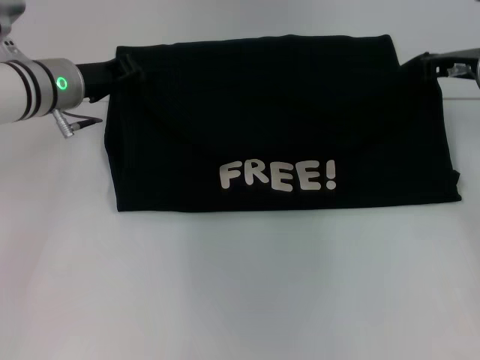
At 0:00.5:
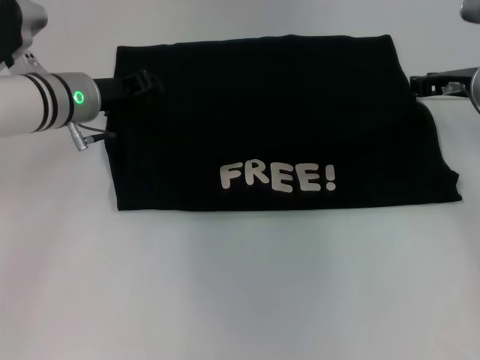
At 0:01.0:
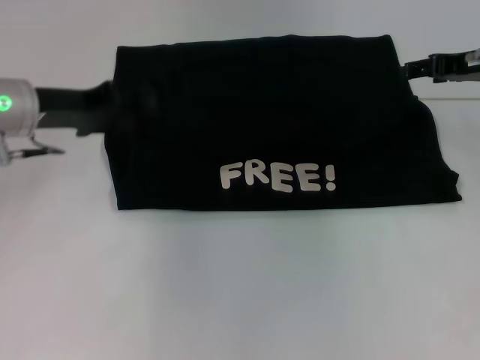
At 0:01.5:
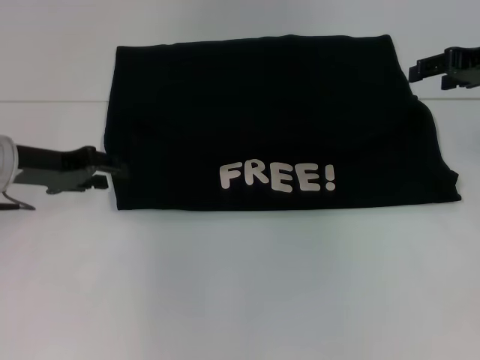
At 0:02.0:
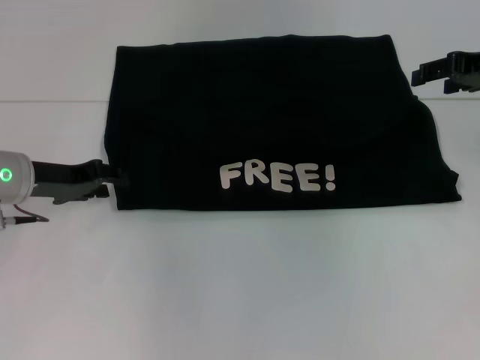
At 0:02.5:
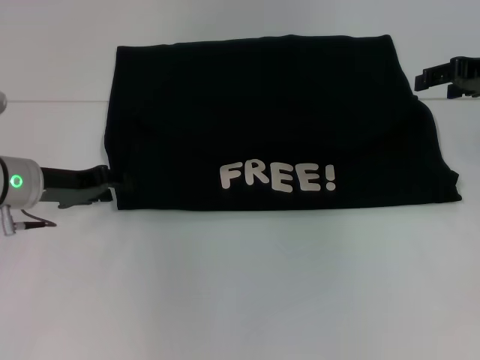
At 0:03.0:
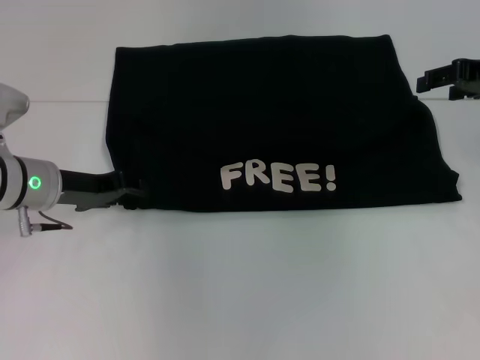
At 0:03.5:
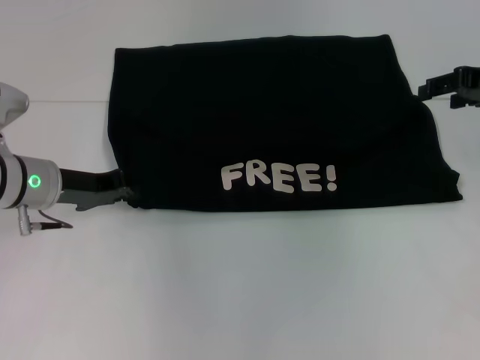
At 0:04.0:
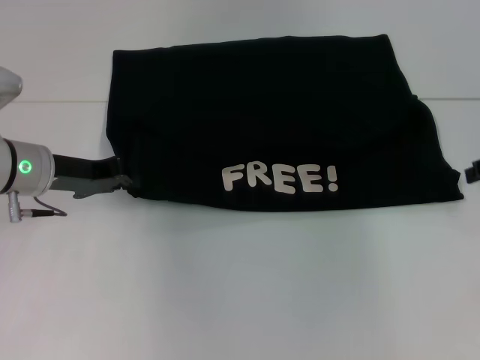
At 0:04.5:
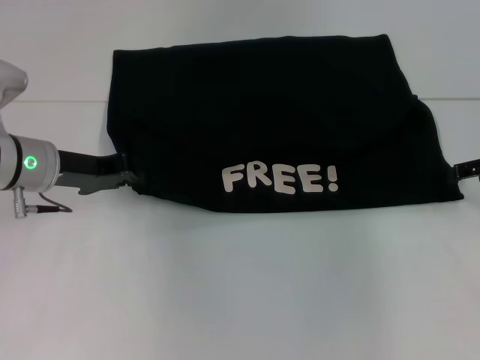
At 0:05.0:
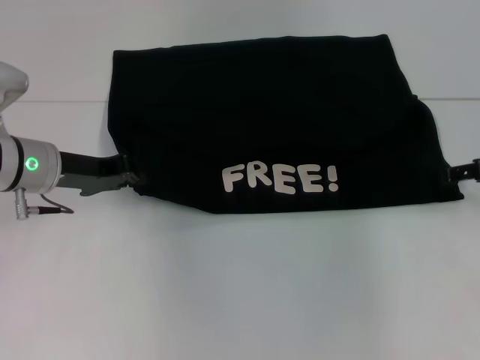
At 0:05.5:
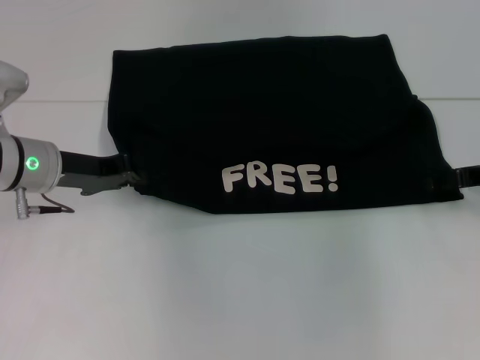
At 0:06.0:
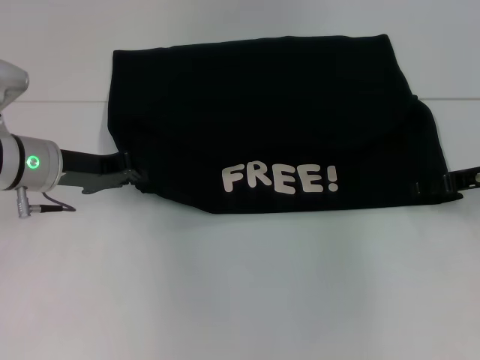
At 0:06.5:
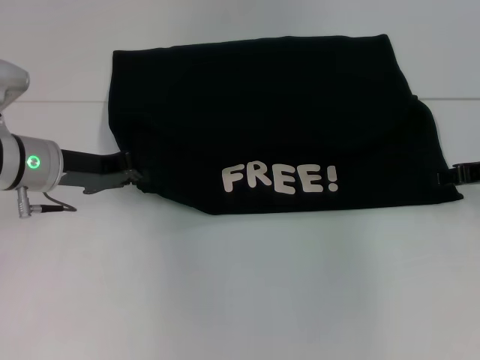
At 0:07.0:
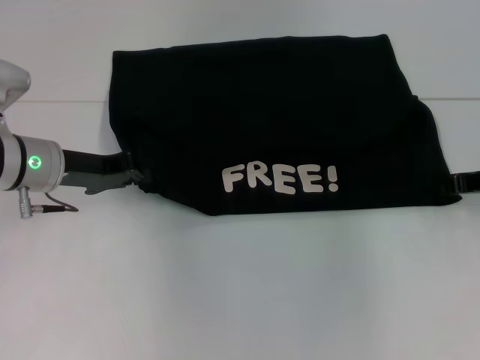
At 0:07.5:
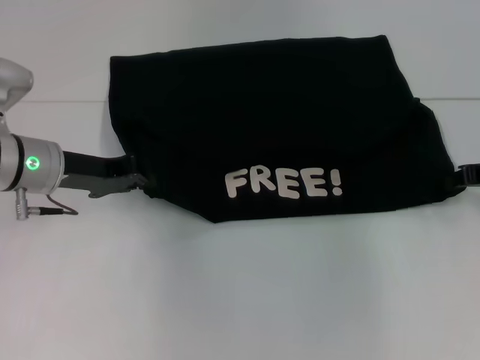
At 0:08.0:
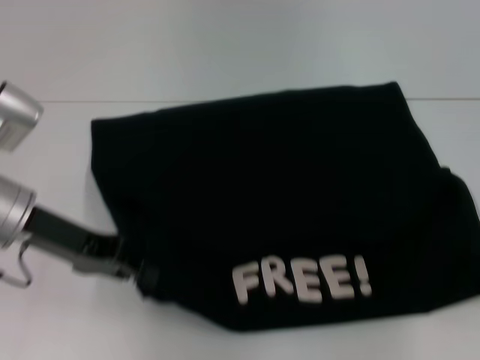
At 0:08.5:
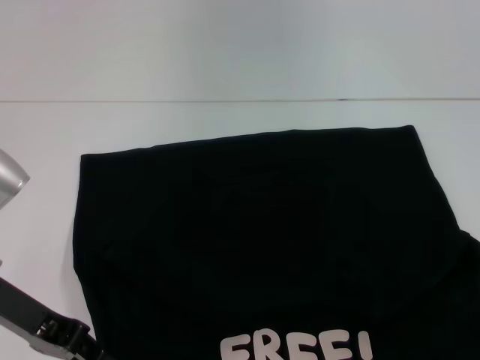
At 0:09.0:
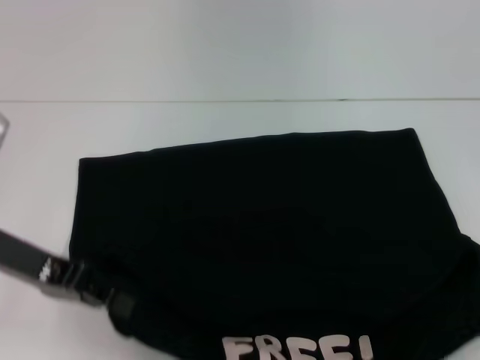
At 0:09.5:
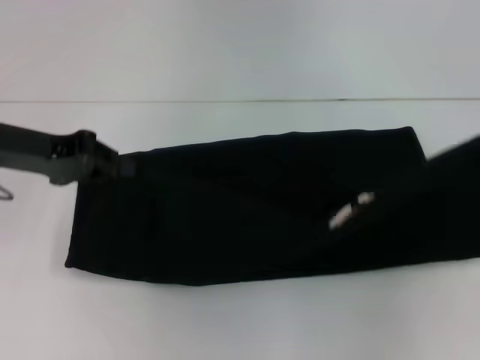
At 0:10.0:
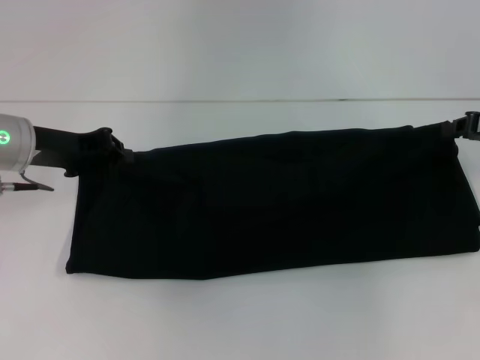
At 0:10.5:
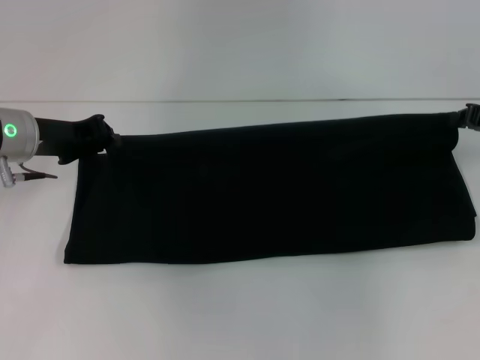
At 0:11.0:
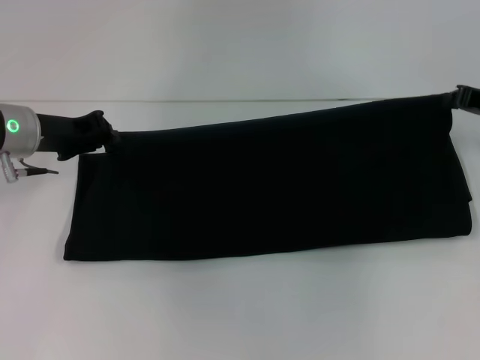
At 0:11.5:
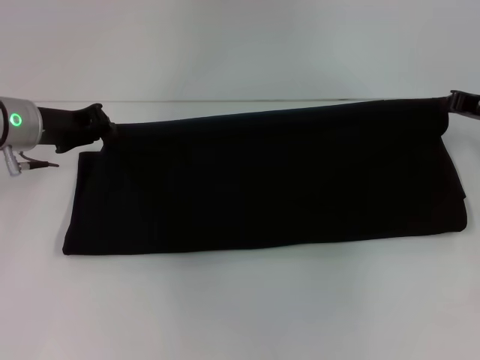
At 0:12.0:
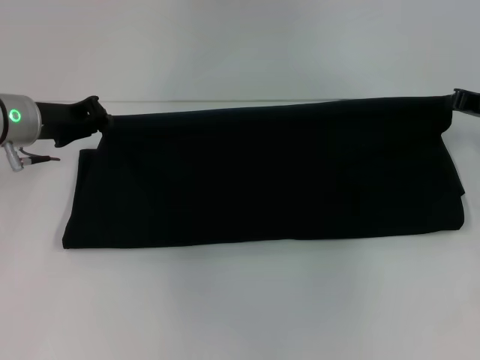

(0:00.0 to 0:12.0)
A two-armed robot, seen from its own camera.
Step, 0:01.5 - 0:08.5: Pull the clothes with your left hand.
Step, 0:01.5 - 0:08.5: Pull the clothes with your right hand.
0:00.0 - 0:02.0: The right gripper is displaced upward by some 5 cm, and opens up. The left gripper heads backward and to the left, covering some 10 cm, and opens up.
0:02.0 - 0:04.0: The right gripper is displaced backward and to the right by some 5 cm, while the left gripper closes.
0:04.0 - 0:06.0: The right gripper goes some 5 cm downward.
0:06.0 - 0:08.0: The right gripper shifts roughly 10 cm backward and to the right, and closes; the left gripper goes approximately 5 cm backward.
0:08.0 - 0:10.0: Both grippers move forward, some 5 cm.

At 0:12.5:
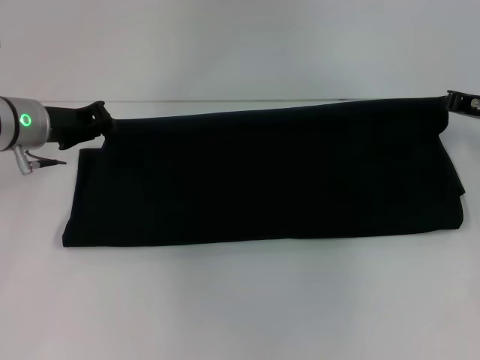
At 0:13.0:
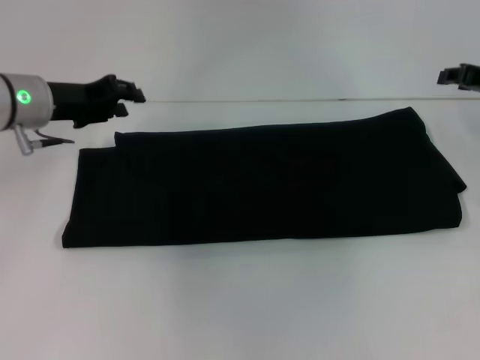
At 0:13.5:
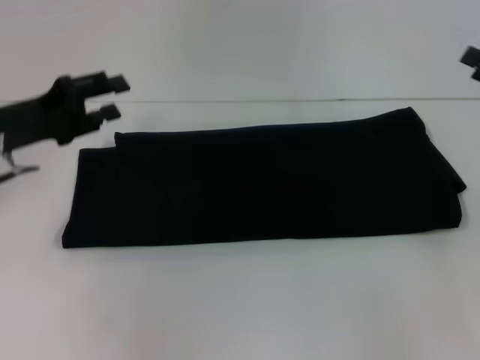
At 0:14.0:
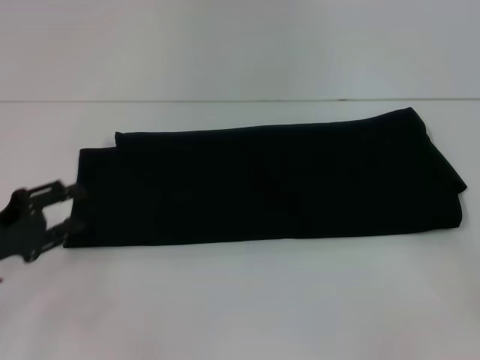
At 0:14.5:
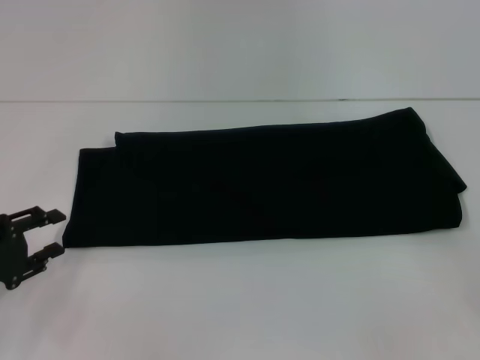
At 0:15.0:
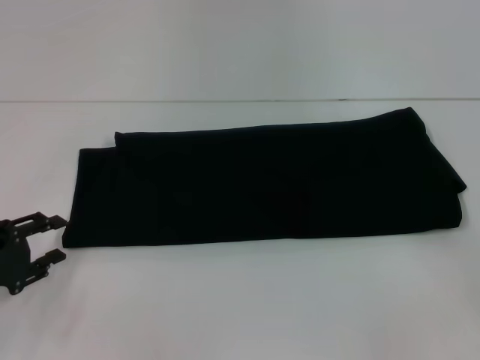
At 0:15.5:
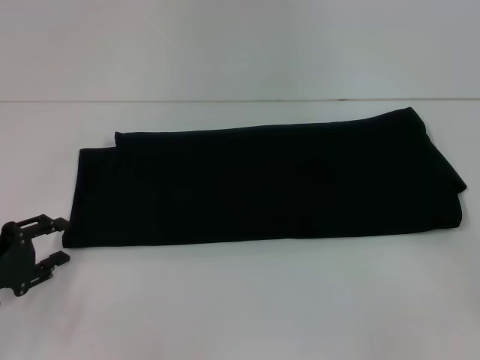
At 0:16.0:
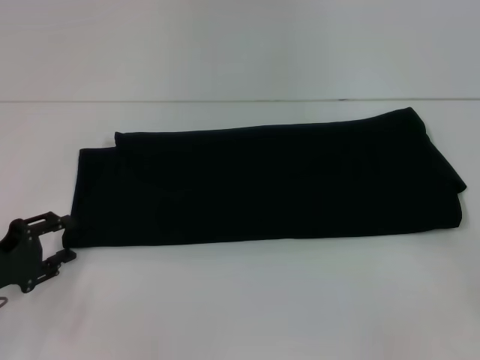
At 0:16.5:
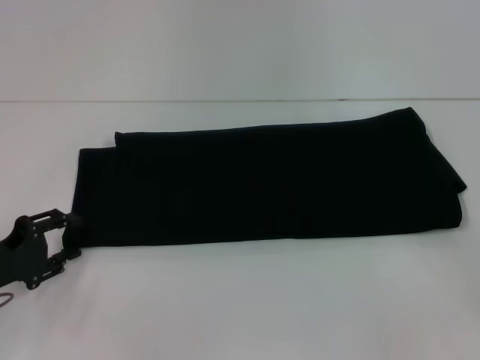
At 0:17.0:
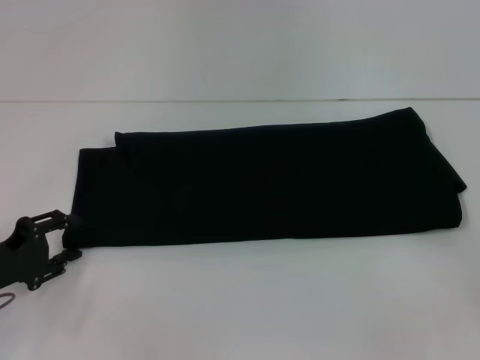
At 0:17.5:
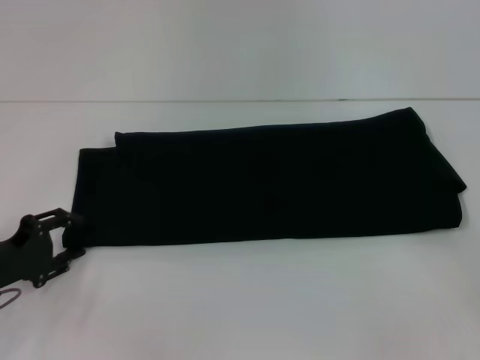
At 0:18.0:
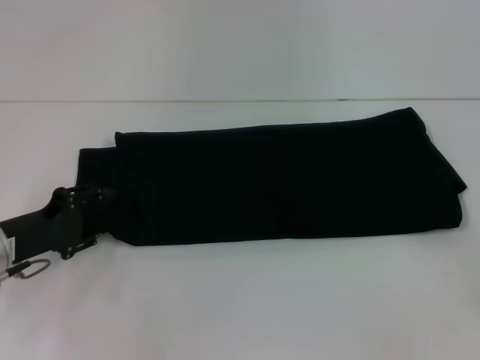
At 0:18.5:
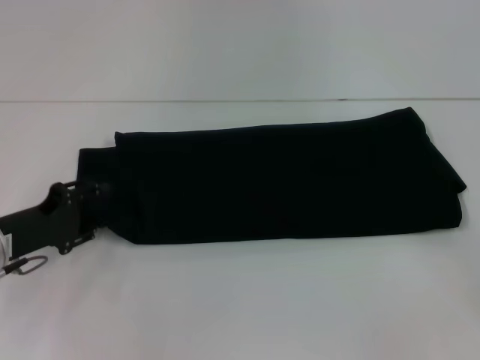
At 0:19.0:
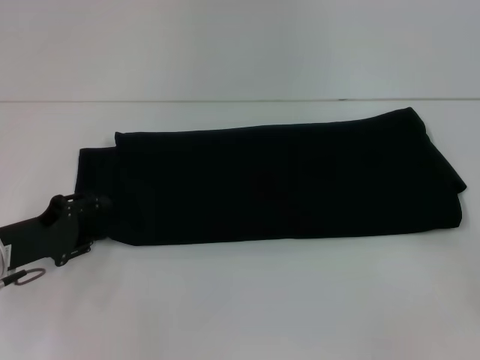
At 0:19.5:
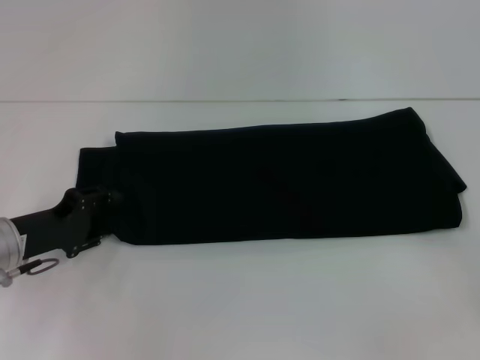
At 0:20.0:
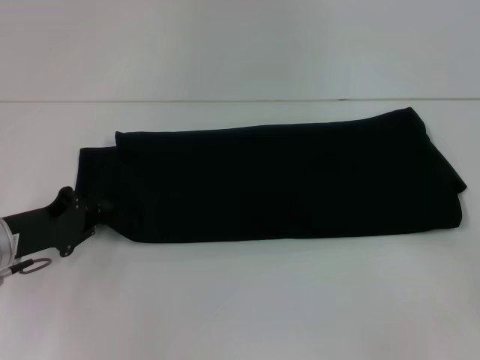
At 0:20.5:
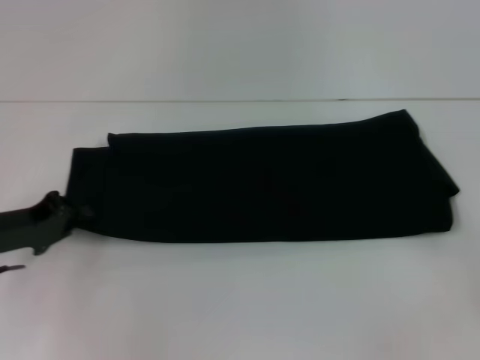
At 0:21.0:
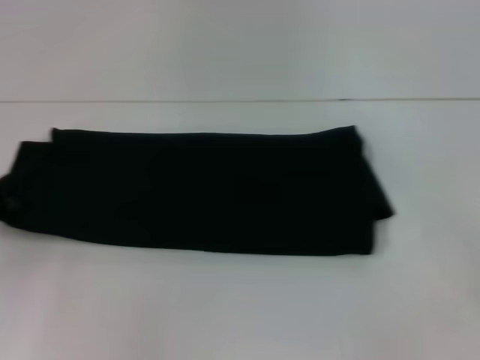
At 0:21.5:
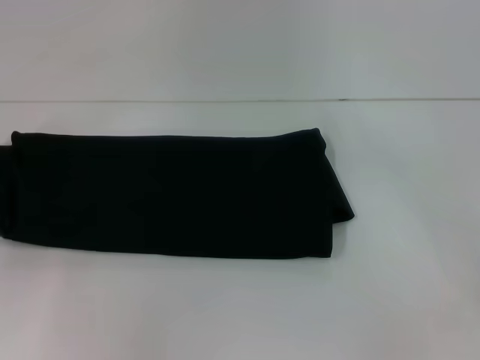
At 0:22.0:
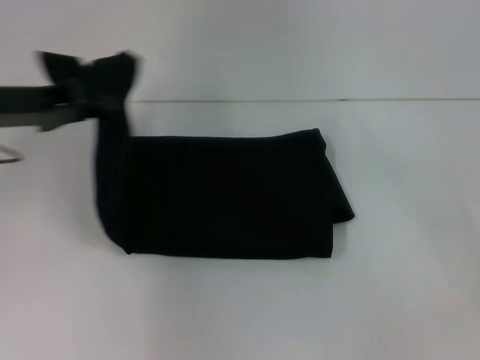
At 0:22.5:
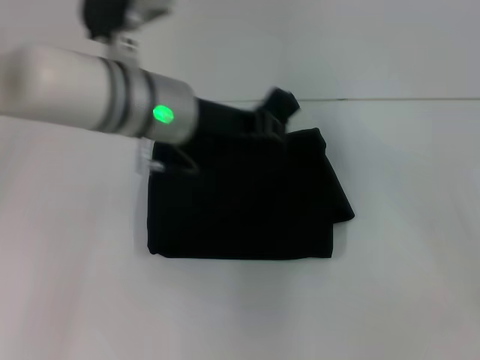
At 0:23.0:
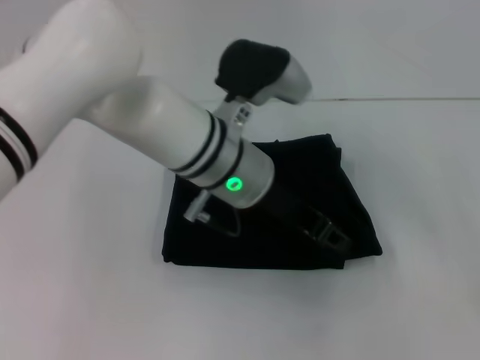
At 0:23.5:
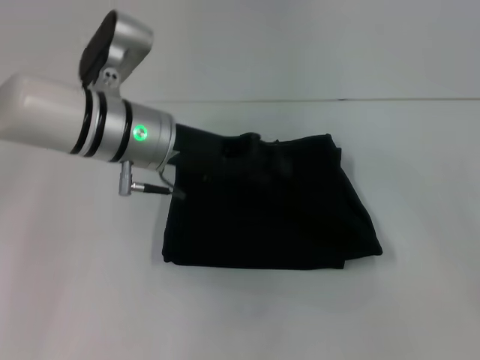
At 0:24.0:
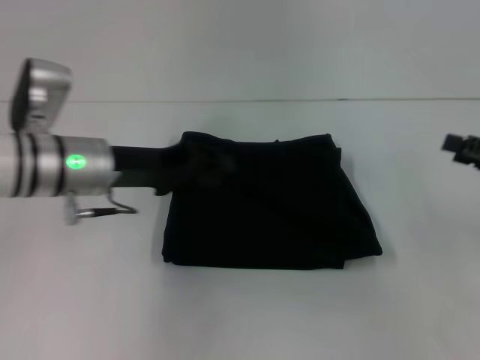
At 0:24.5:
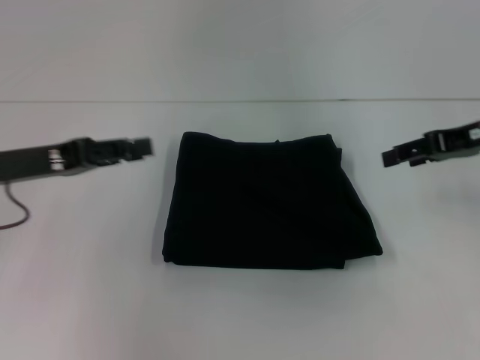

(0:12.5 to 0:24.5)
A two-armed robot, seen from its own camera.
Step, 0:12.5 - 0:23.0: Fold the clothes with your left hand.
0:12.5 - 0:14.5: The left gripper is displaced backward, to the left and downward by about 20 cm, and opens its fingers; the right gripper goes approximately 15 cm backward and to the right, and opens up.
0:14.5 - 0:16.5: The grippers make only small movements.
0:16.5 - 0:18.5: The grippers stay close to where they were, moving slightly.
0:18.5 - 0:20.5: The left gripper closes its fingers.
0:20.5 - 0:22.5: The left gripper is displaced to the right and upward by approximately 25 cm.
0:22.5 - 0:24.5: The right gripper goes approximately 15 cm forward, to the left and upward, while the left gripper shifts approximately 20 cm to the left, and opens its fingers.

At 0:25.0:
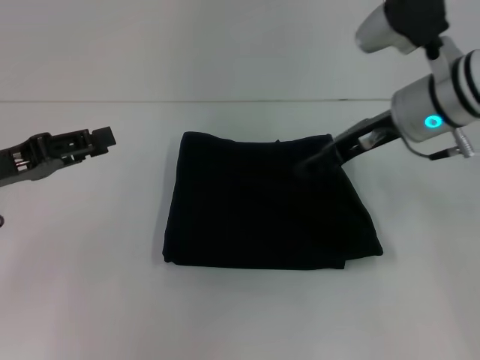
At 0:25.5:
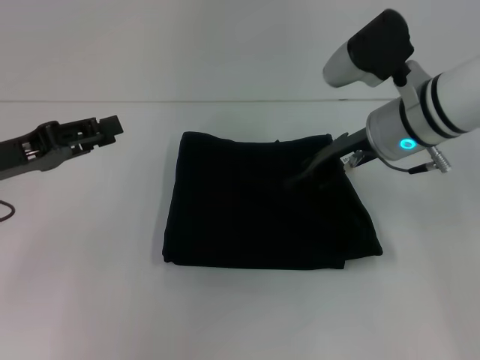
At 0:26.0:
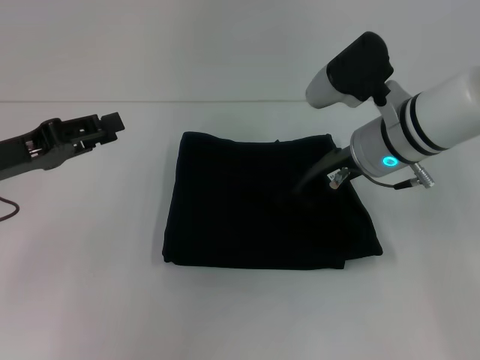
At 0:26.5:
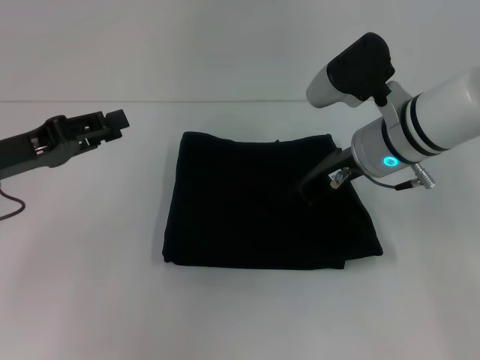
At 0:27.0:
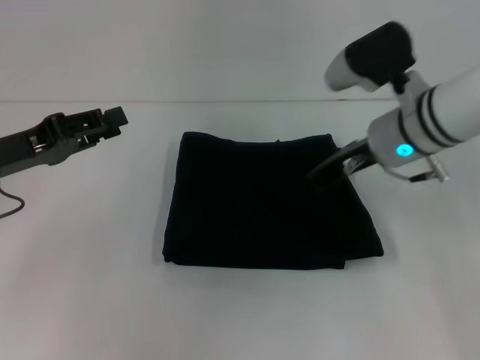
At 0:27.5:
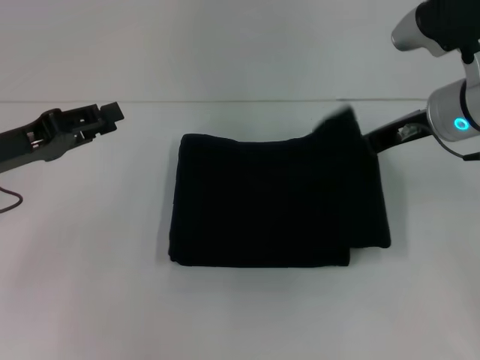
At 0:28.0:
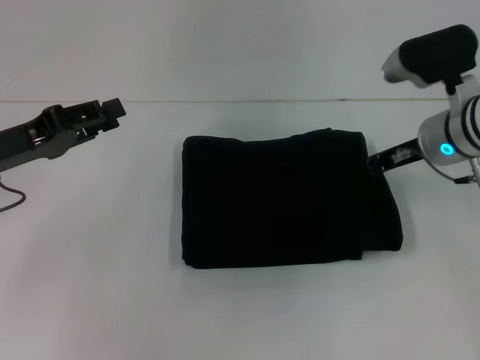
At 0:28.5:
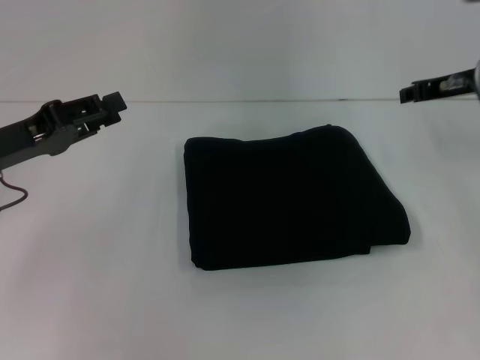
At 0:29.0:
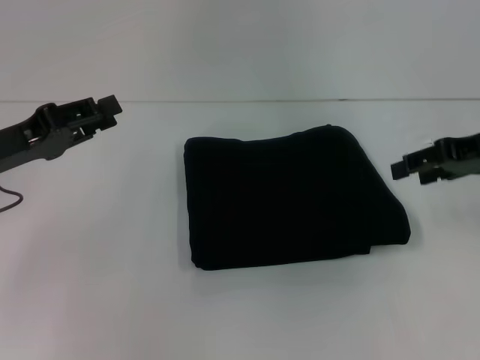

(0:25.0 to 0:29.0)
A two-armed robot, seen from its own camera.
0:25.0 - 0:27.0: The right gripper closes up.
0:27.0 - 0:29.0: The right gripper travels to the right by roughly 15 cm, and opens.
